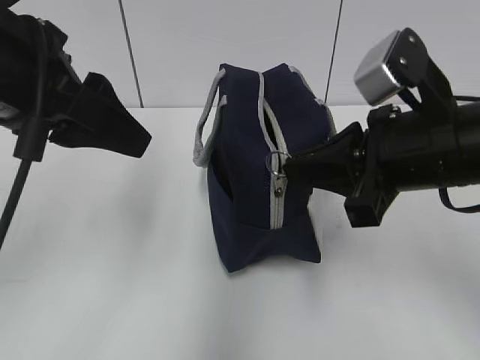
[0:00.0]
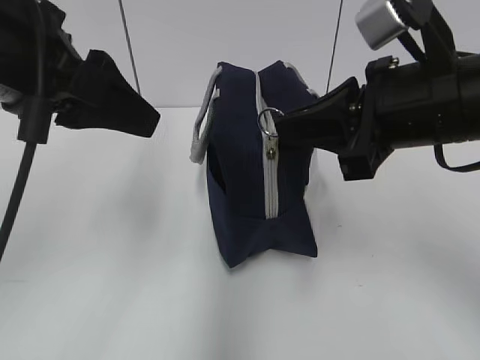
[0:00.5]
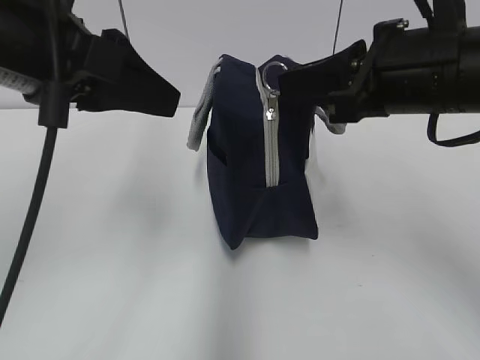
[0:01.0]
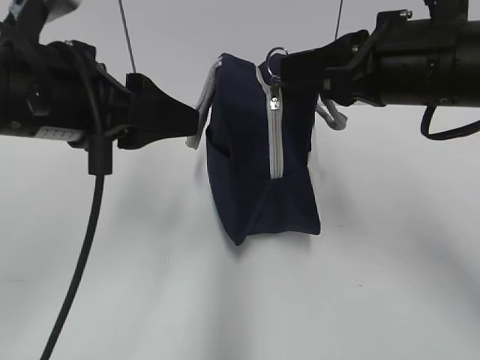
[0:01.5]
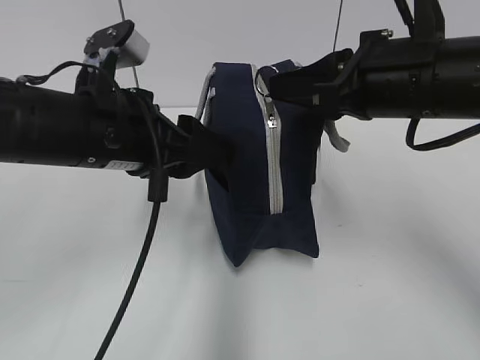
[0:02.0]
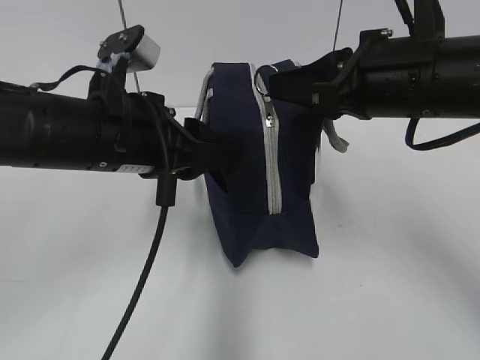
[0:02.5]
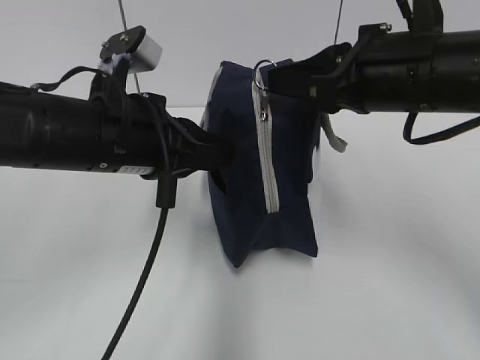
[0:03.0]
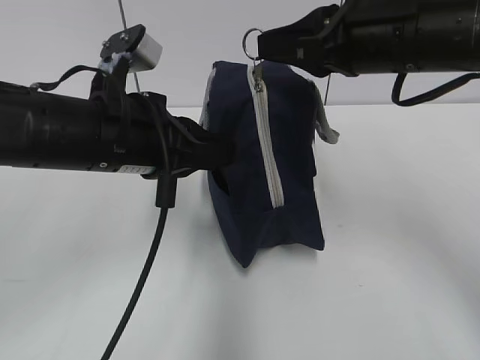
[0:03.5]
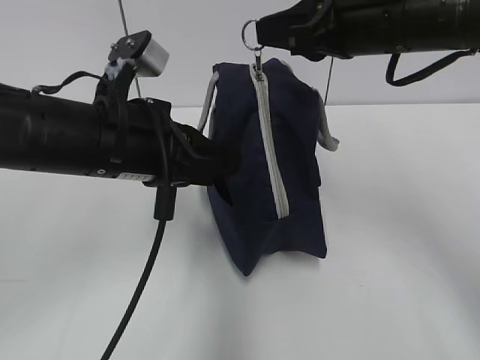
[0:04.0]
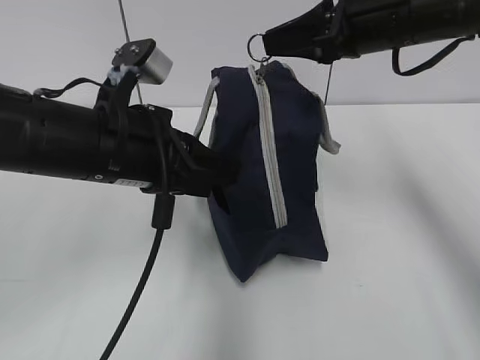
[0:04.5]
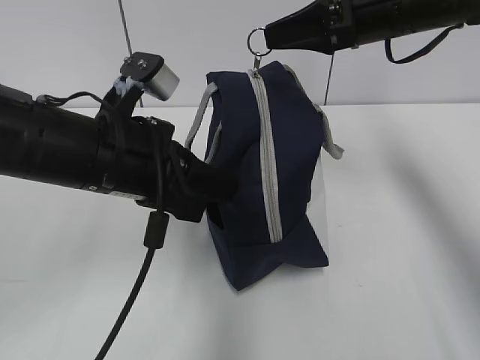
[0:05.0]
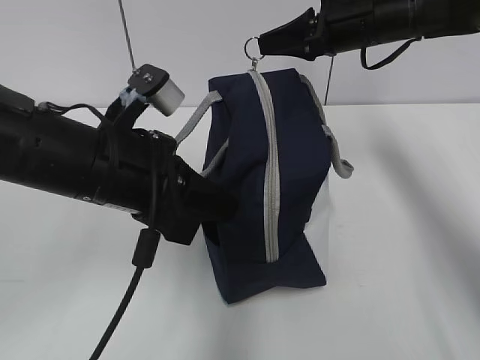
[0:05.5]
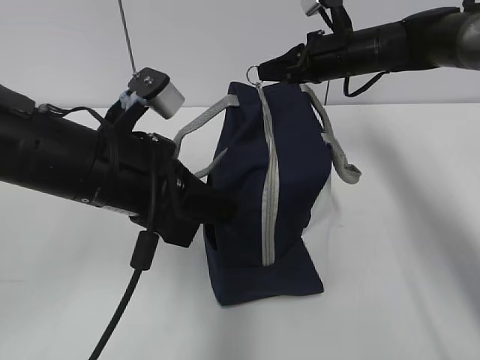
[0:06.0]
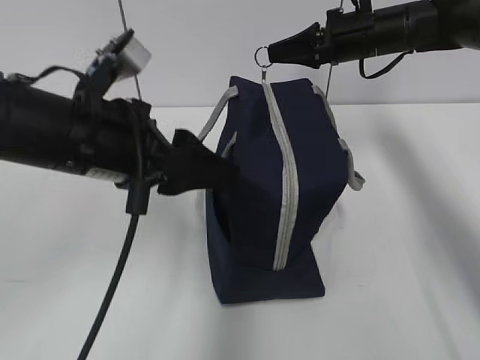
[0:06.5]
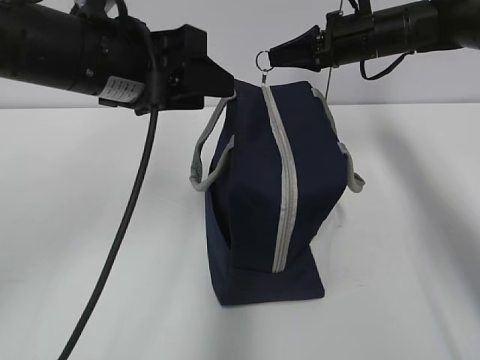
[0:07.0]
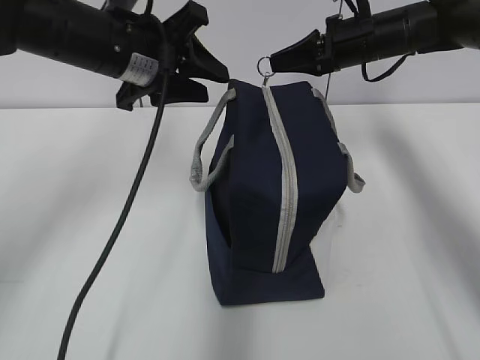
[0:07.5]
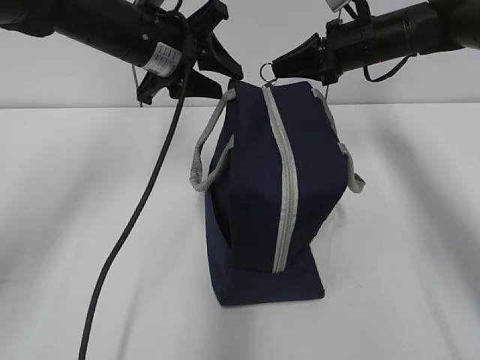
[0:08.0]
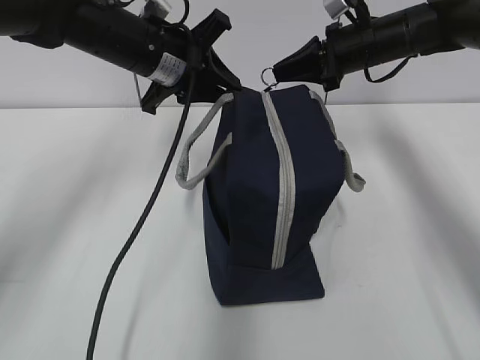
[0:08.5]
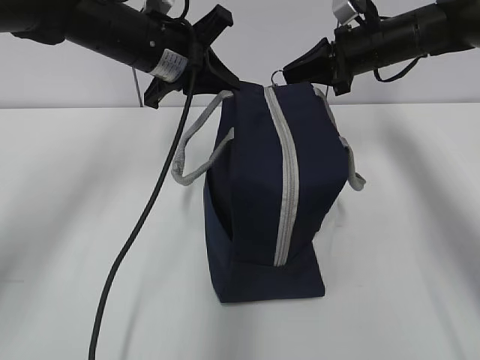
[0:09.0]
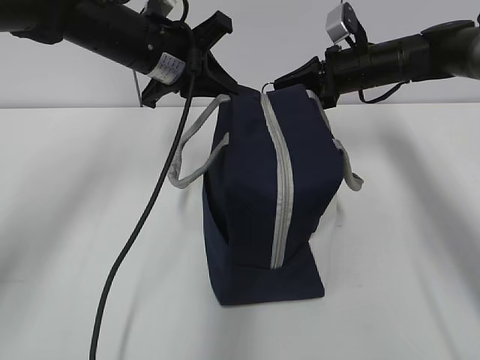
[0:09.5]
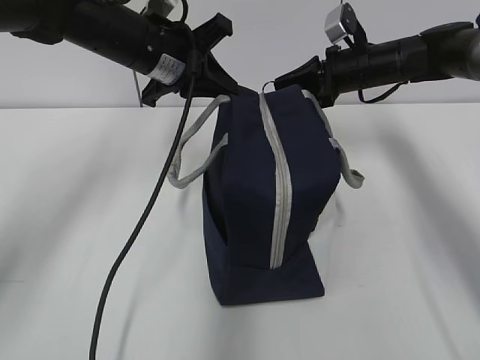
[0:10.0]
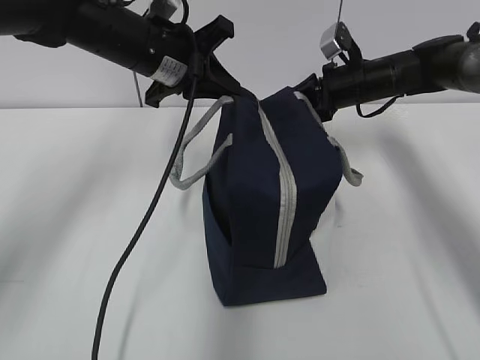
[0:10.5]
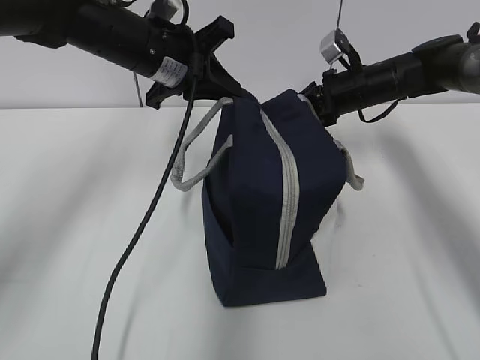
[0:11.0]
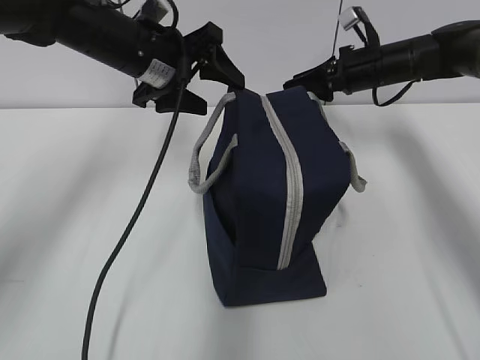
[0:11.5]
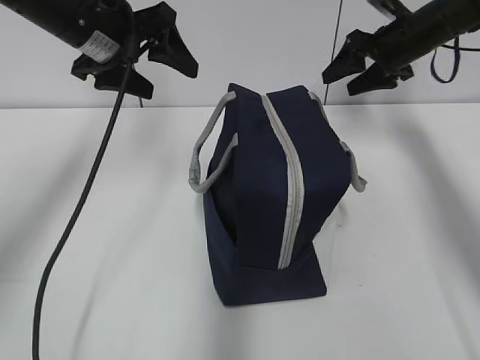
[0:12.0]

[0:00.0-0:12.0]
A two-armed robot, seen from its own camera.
Step, 0:00.0 to 0:03.0: Grab the lunch bag with your left hand.
Step, 0:03.5 to 0:11.0: Pull the zipper with your right hand.
0:00.0 to 0:02.0: The right gripper moves some 5 cm, while the left gripper heads downward, covering some 10 cm.
0:02.0 to 0:04.0: The right gripper ends up approximately 5 cm from where it was, while the left gripper closes up.
0:04.0 to 0:06.0: The right gripper travels forward and downward by about 20 cm.
0:06.0 to 0:08.0: The left gripper shifts some 15 cm forward, and opens.
0:08.0 to 0:10.0: The left gripper closes up.
0:10.0 to 0:12.0: The left gripper is displaced to the left by roughly 5 cm, and opens its fingers. Meanwhile the right gripper shifts roughly 5 cm to the right, and opens up.

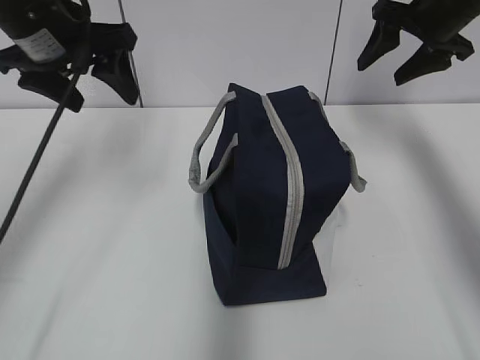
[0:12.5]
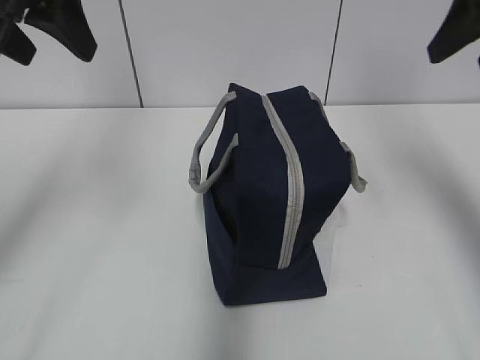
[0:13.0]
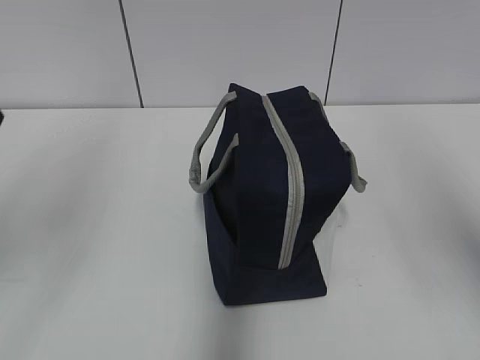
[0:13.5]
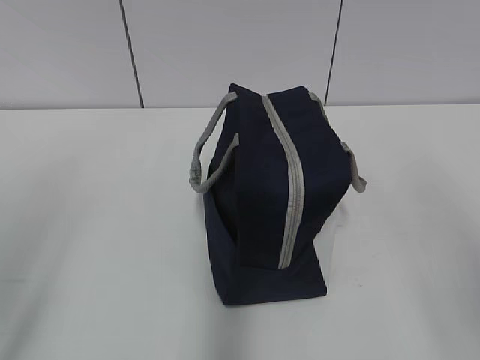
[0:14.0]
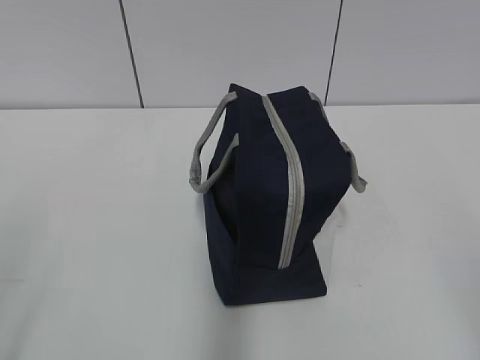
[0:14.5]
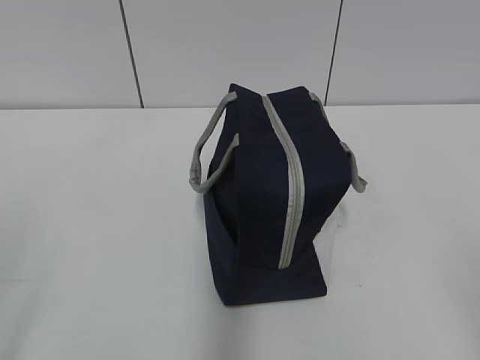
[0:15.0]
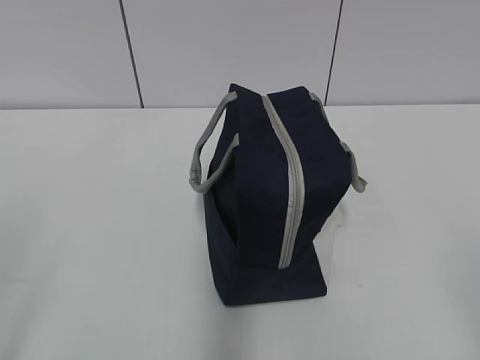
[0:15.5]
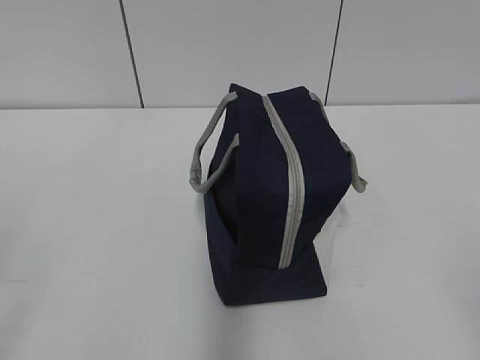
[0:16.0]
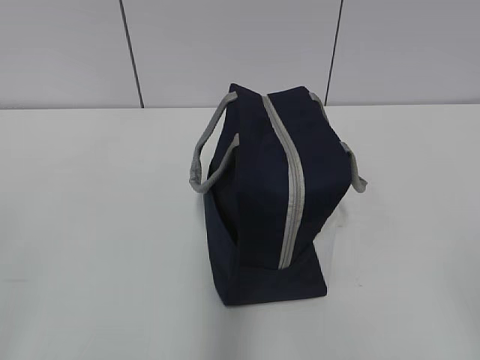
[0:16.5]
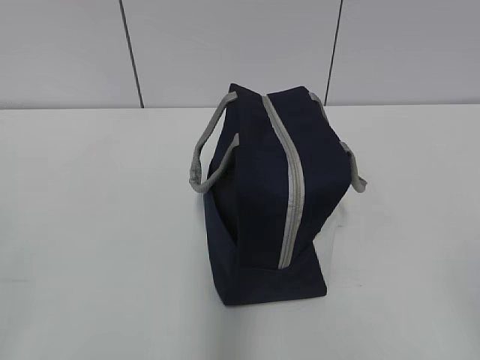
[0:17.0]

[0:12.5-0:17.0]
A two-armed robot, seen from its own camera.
0:12.5 to 0:14.5: The grippers both shift backward by roughly 40 cm.
